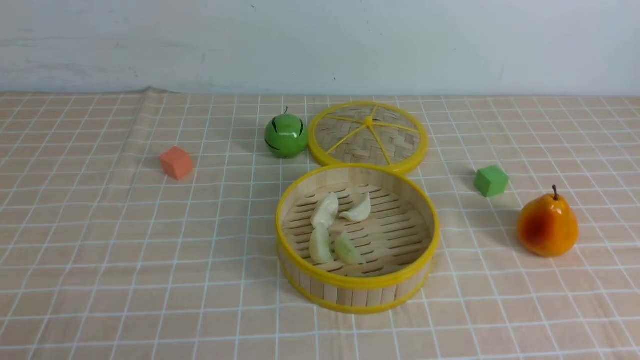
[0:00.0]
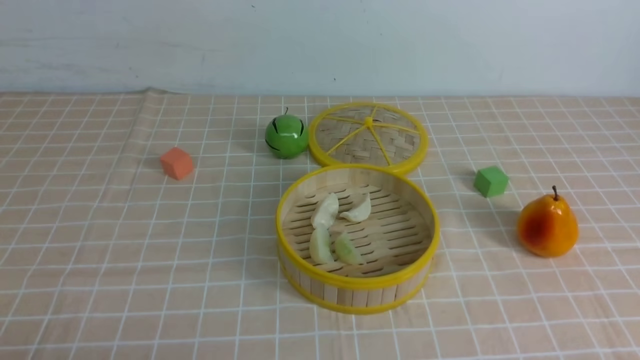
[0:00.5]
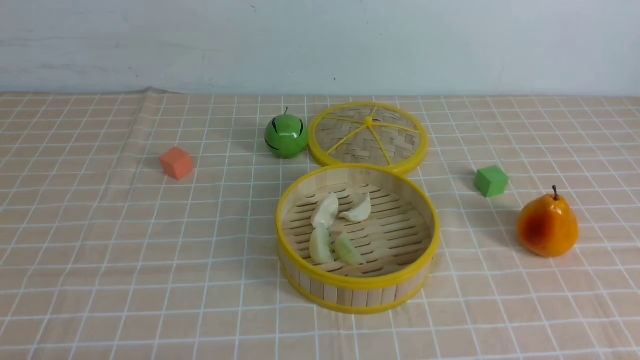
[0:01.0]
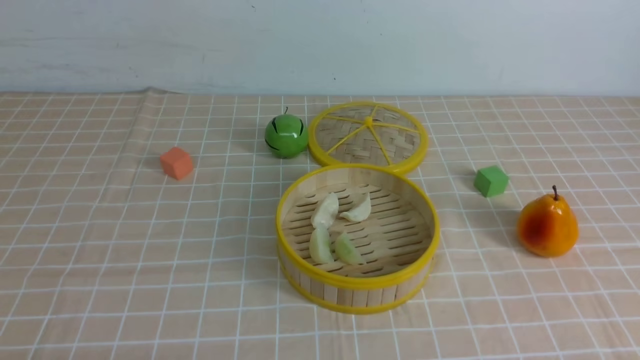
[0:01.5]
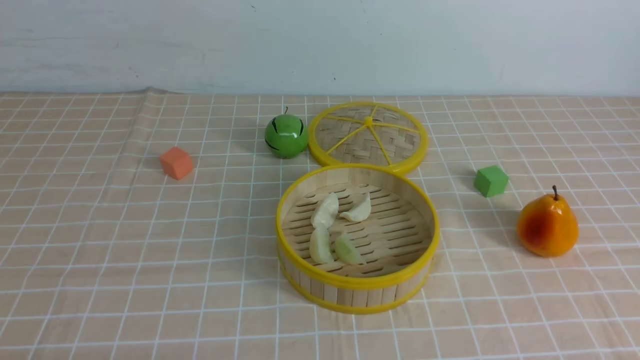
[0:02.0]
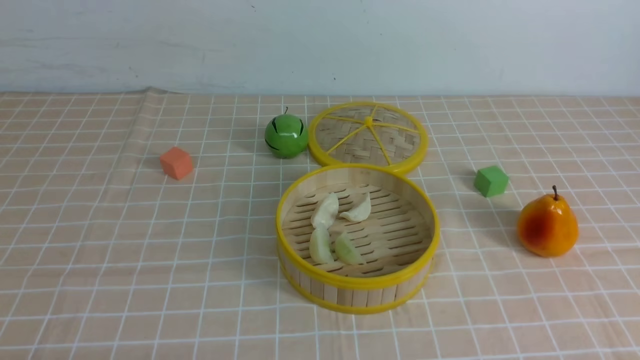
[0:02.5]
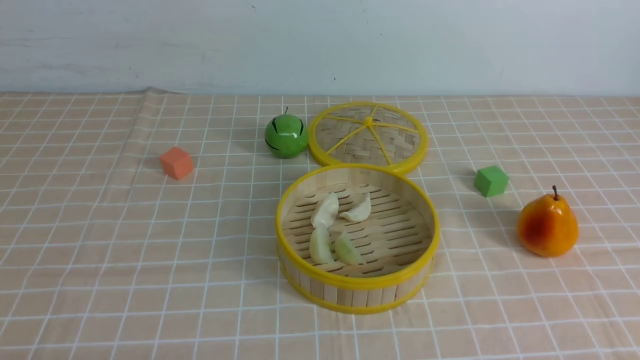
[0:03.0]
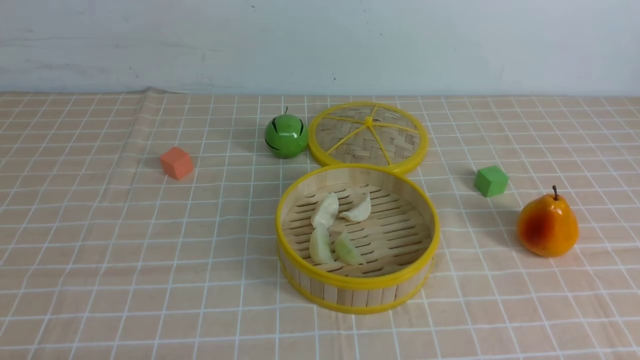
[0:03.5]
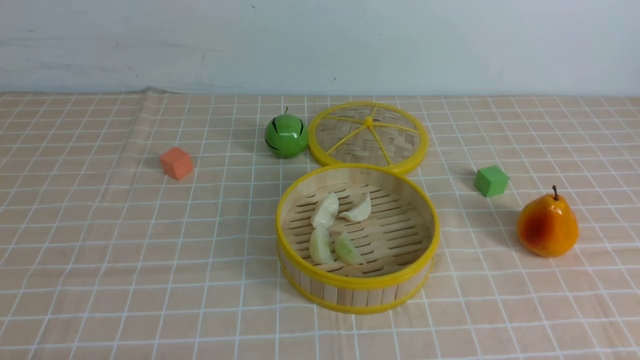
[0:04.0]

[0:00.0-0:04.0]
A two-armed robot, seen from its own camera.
Task of the whole recording: put the dumplings into the steamer on the table with the brown tablecloth.
0:02.0 to 0:04.0: The two grippers keep their place.

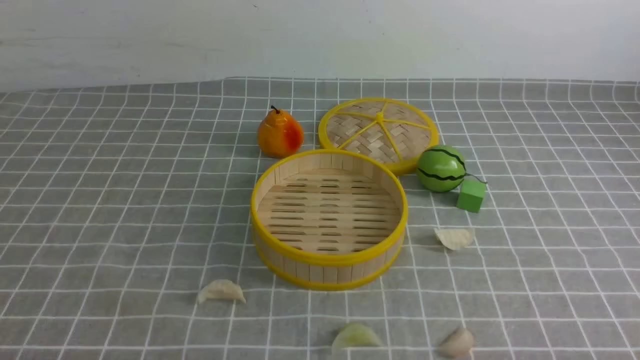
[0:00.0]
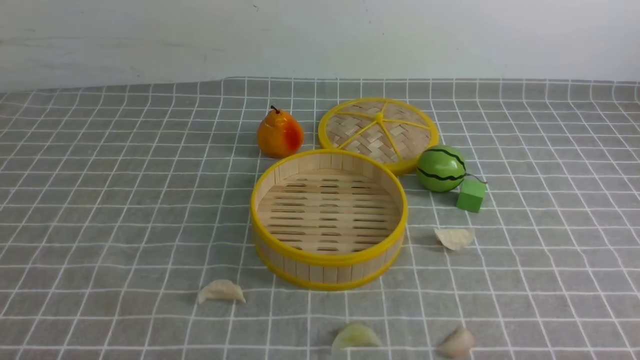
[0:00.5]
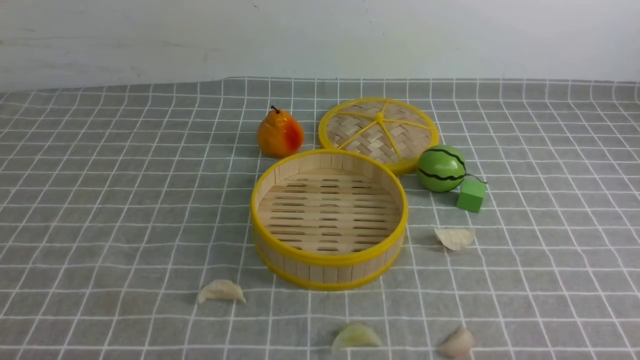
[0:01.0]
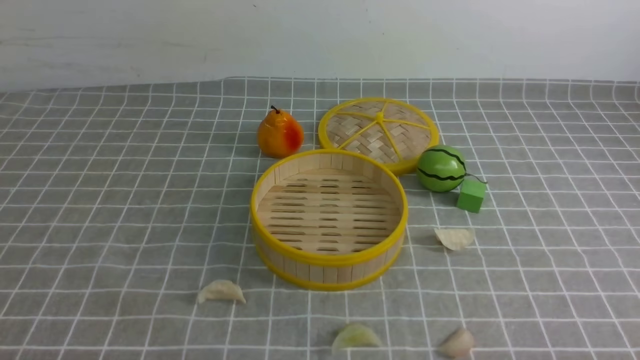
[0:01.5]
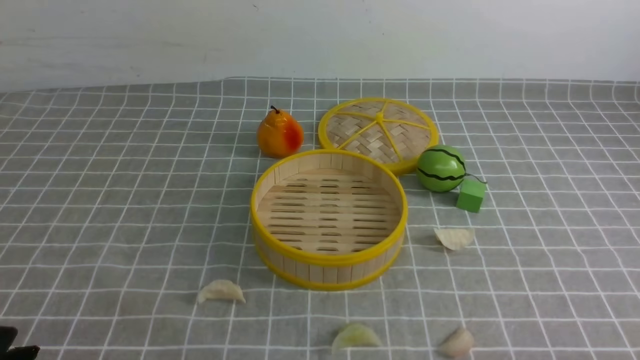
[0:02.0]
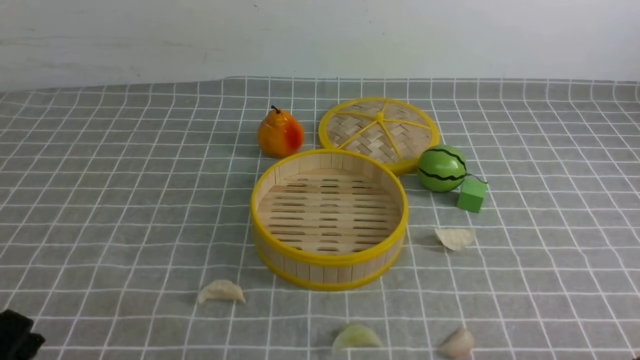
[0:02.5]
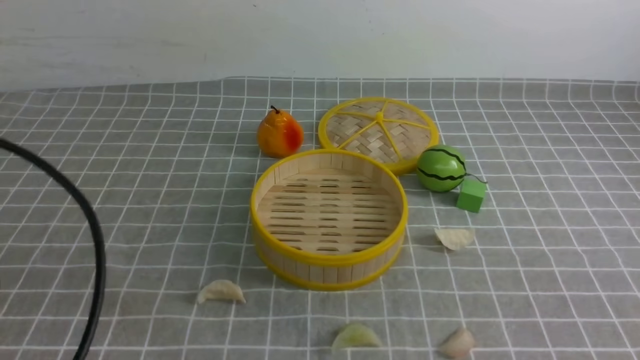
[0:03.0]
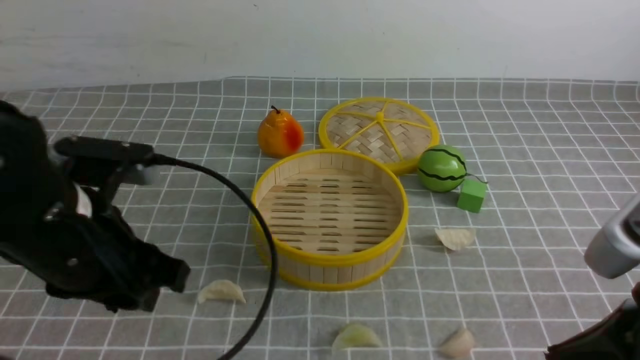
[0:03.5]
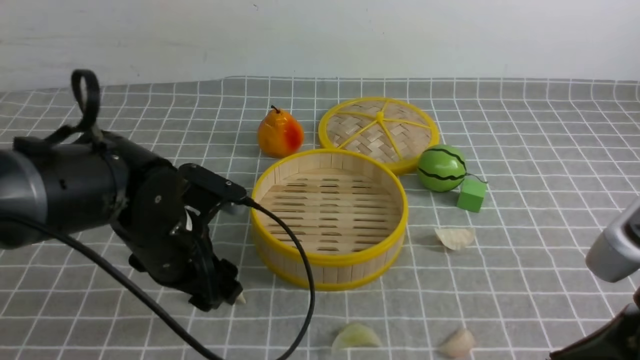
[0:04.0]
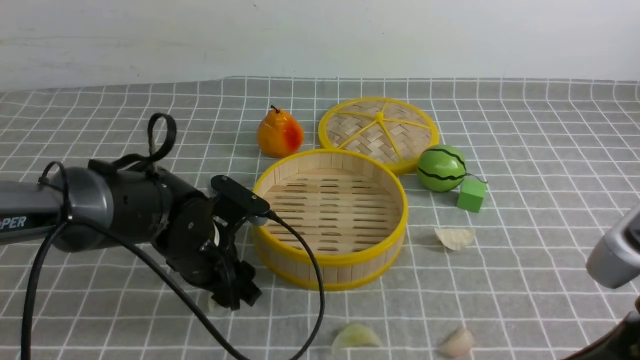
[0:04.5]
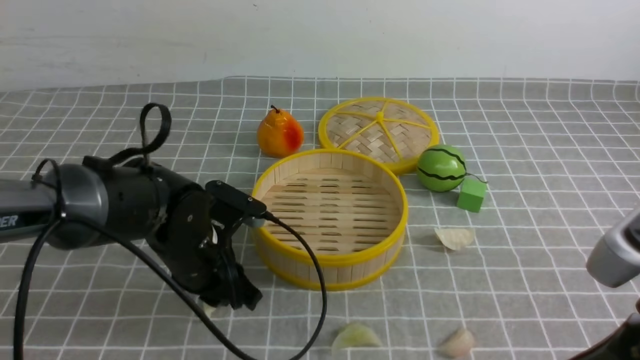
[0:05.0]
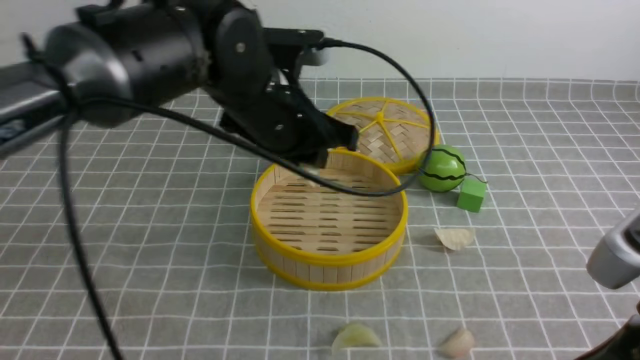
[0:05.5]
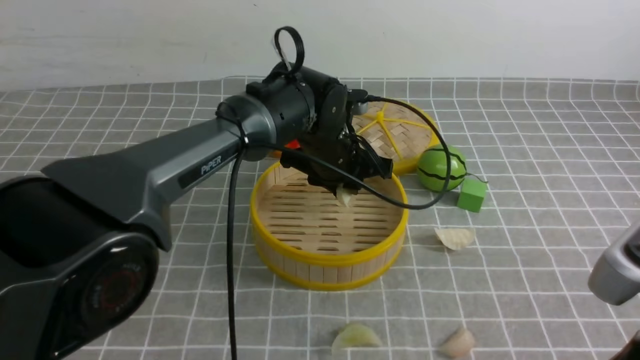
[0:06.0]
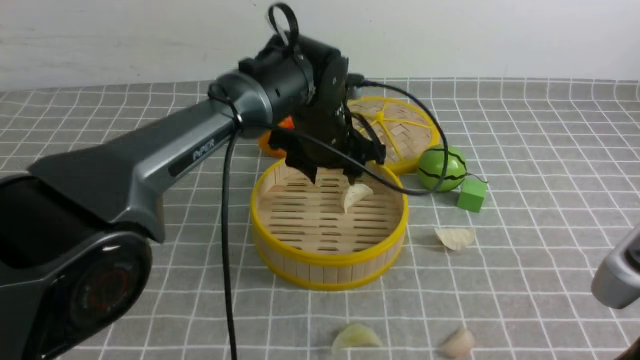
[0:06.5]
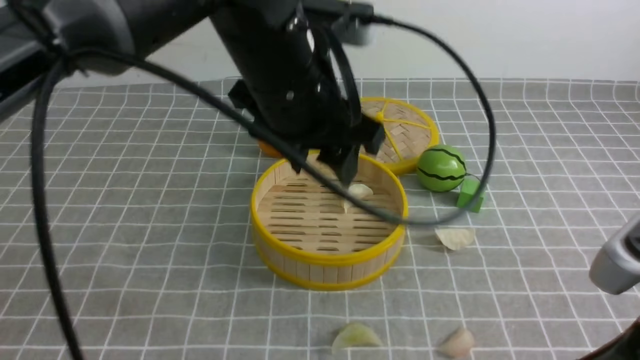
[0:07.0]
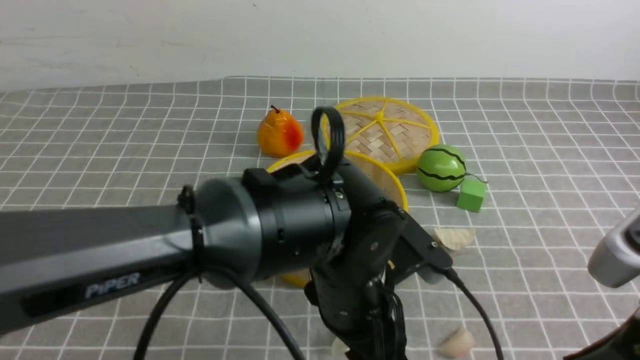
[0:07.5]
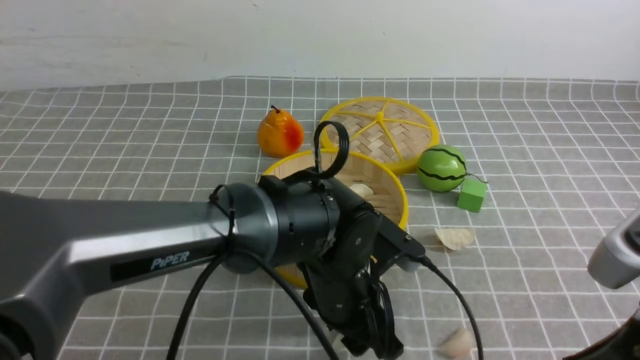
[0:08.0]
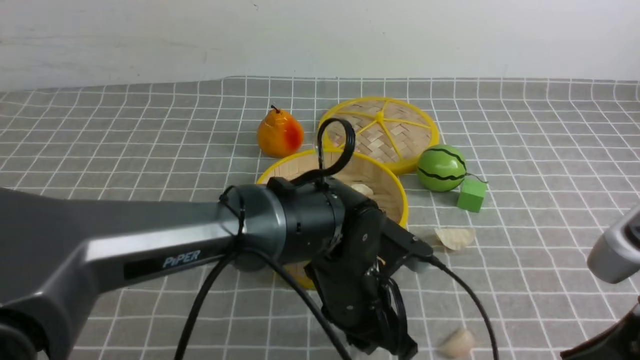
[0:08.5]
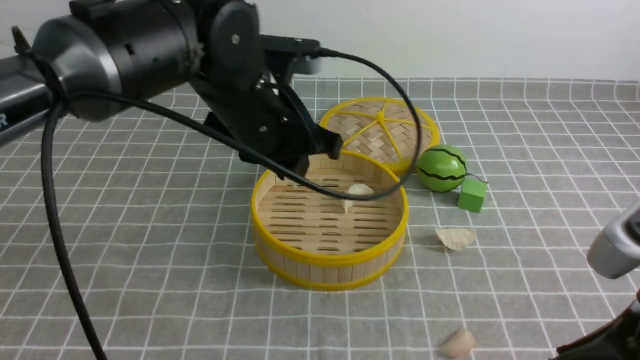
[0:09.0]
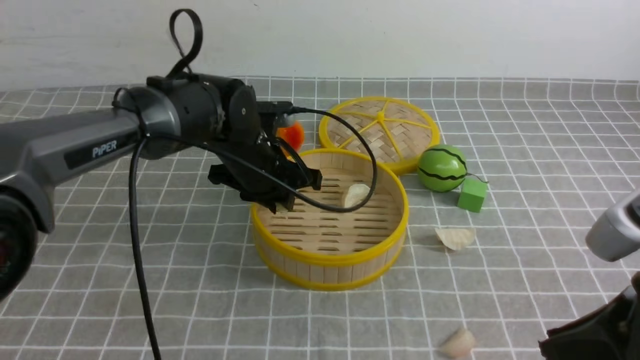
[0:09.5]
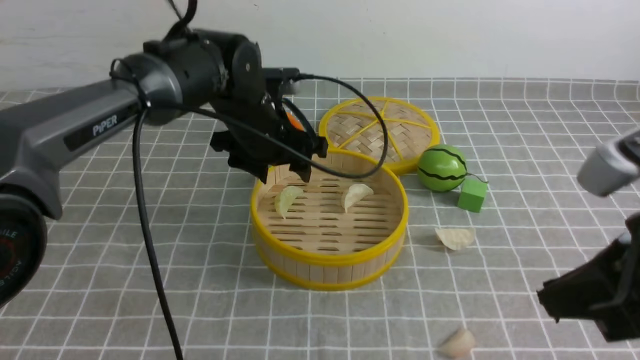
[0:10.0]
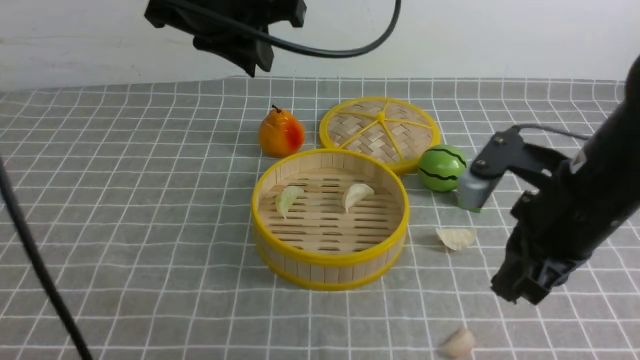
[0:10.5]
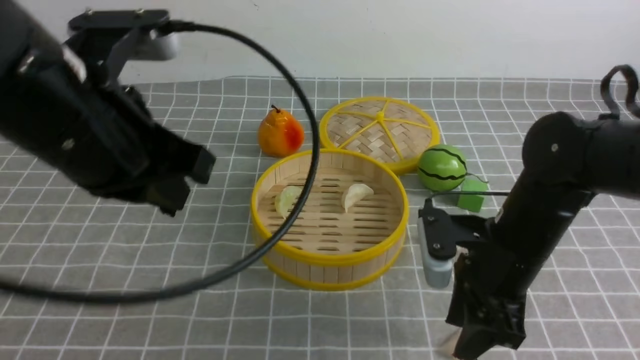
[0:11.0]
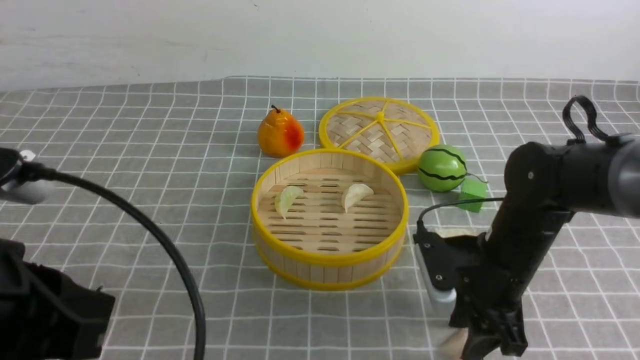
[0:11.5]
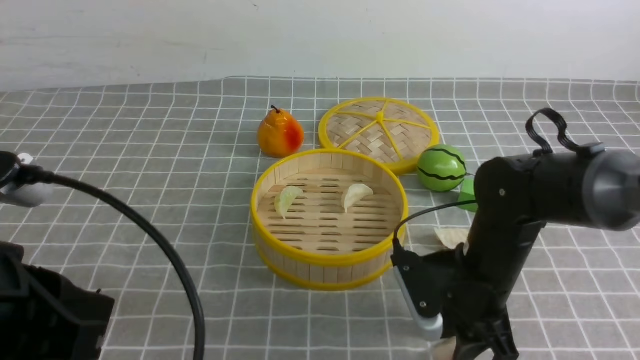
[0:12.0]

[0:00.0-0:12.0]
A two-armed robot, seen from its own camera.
Task of the whole recording: put the dumplings into the steamer on the table with the grey tablecloth.
Step, 0:00.0 to 0:05.0: use the left arm to grab a dumpling.
Step, 0:05.5 to 0:06.5: use the left arm to put the dumpling into the steamer.
Step, 0:07.0 to 0:08.5: use the left arm to grab a dumpling.
Step, 0:09.0 to 0:09.5: use the left arm to put the dumpling into the steamer.
0:02.0 to 0:04.0: The left gripper shifts some 25 cm forward and to the right, and opens; the right gripper travels upward, forward and to the left by approximately 15 cm, and closes.
0:04.0 to 0:06.0: The left gripper is displaced to the right and forward by about 20 cm, and closes up.
0:06.0 to 0:08.0: The left gripper goes roughly 15 cm backward.
0:08.0 to 0:10.0: The right gripper shifts by roughly 5 cm. Meanwhile the left gripper is displaced forward, to the left and upward by about 20 cm, and closes, then opens again.
0:10.0 to 0:12.0: The left gripper moves backward and to the left, about 35 cm, and closes; the right gripper travels downward and forward by some 25 cm, and opens.

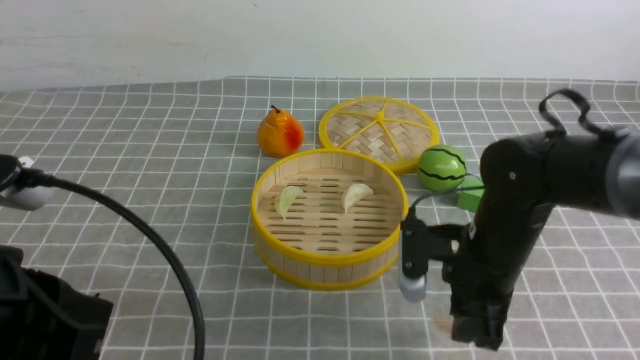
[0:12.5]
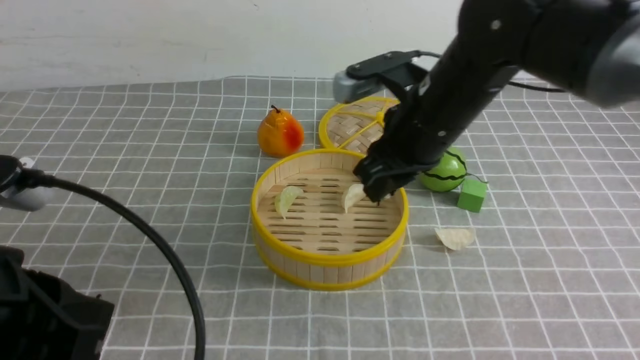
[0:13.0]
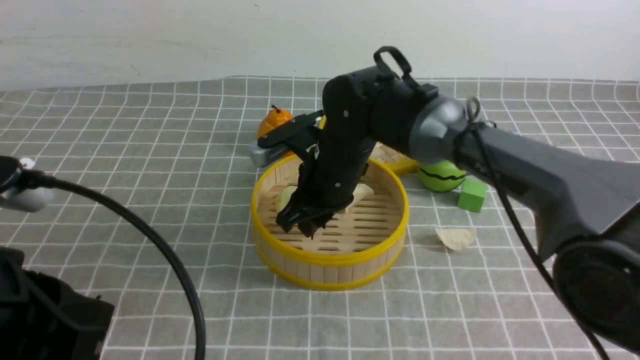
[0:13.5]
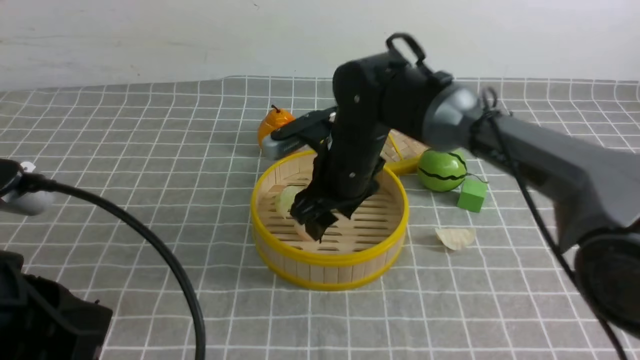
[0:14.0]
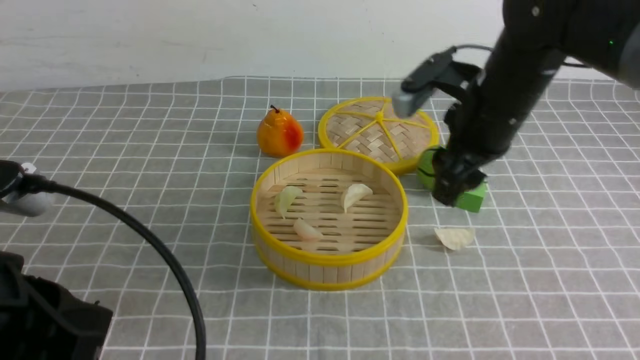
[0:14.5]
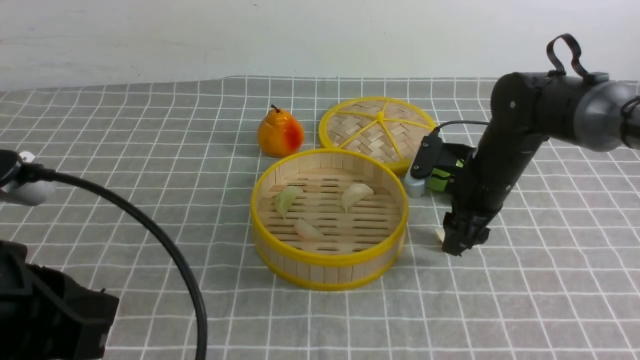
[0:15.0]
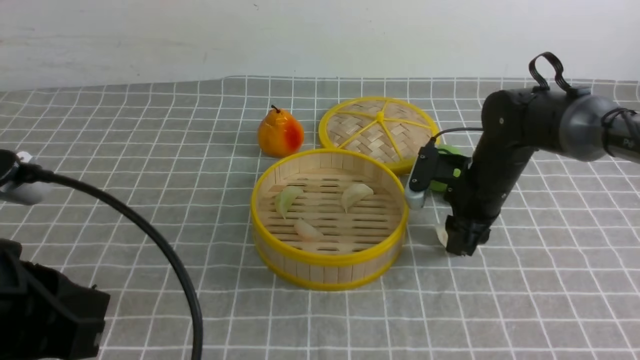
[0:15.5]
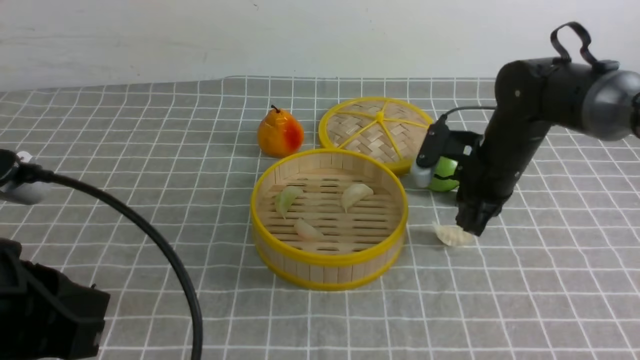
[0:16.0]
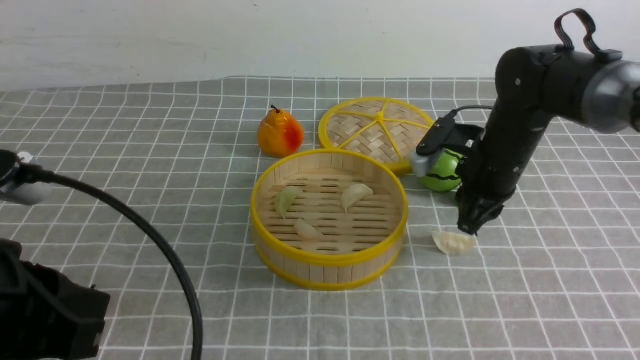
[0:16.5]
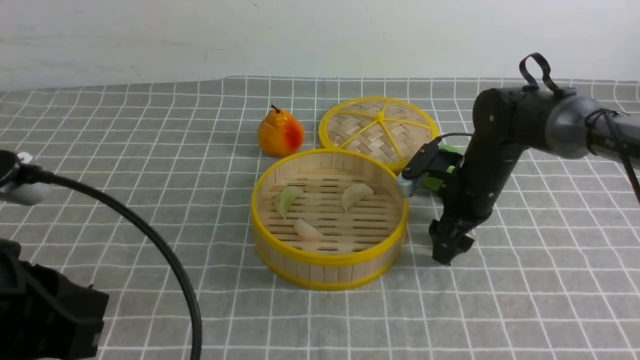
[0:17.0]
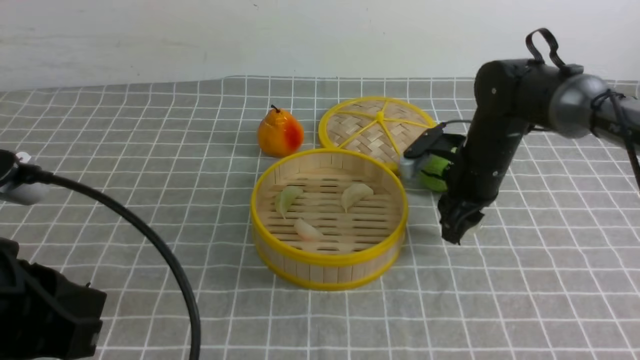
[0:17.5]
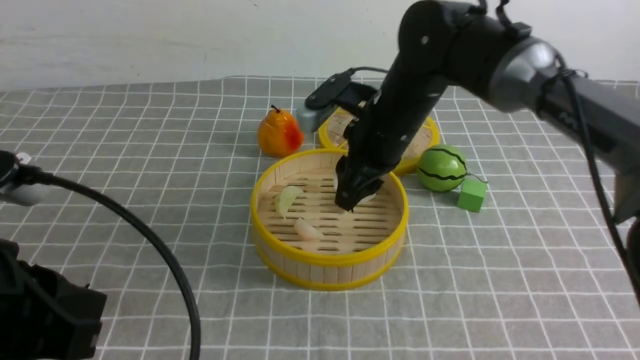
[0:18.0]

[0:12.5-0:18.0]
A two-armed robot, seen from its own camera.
Task of the whole recording: put the dumplings into the steamer on the table with the grey tablecloth.
Step, 0:13.0 to 0:14.0: use the right arm to put the dumpling into the steamer.
Step, 0:14.5 to 0:17.0: use the right arm to grab a dumpling.
0:12.5 to 0:14.5: The right gripper heads forward and upward, covering roughly 10 cm, travels to the left and back again, some 15 cm each way, and opens its fingers.
0:14.5 to 0:16.0: The right gripper shifts about 5 cm downward, and closes.
0:16.0 to 0:18.0: The right gripper travels to the left by about 10 cm, and opens up.
